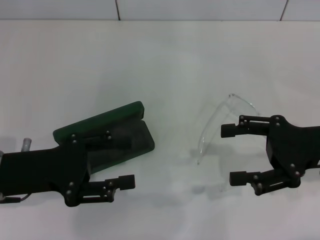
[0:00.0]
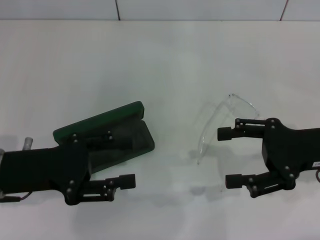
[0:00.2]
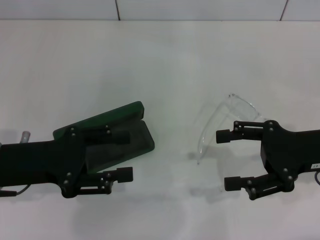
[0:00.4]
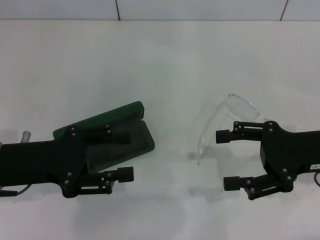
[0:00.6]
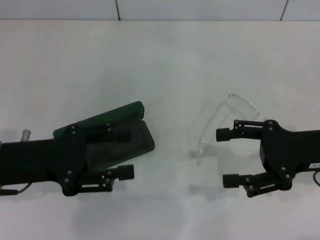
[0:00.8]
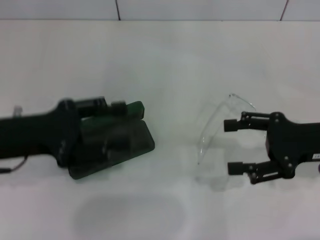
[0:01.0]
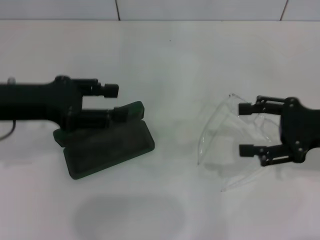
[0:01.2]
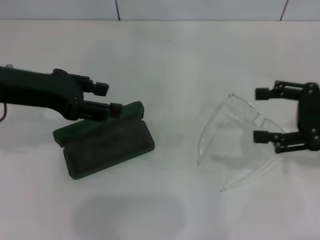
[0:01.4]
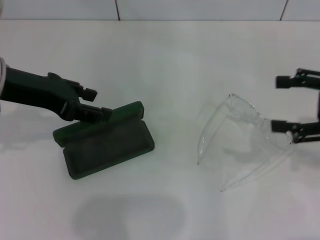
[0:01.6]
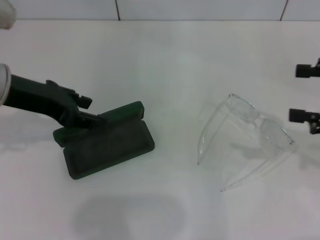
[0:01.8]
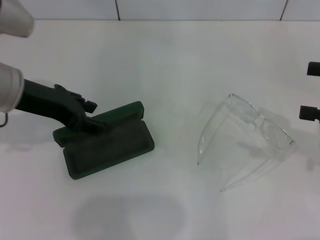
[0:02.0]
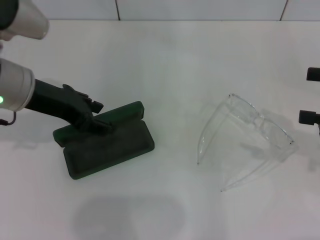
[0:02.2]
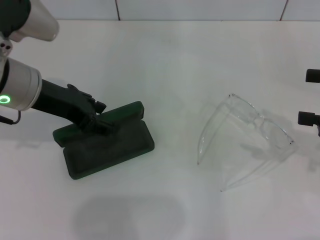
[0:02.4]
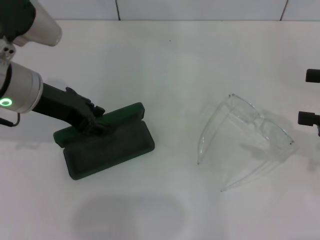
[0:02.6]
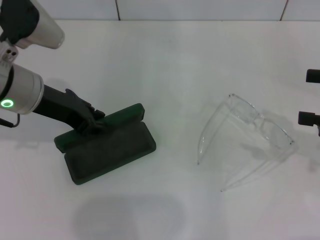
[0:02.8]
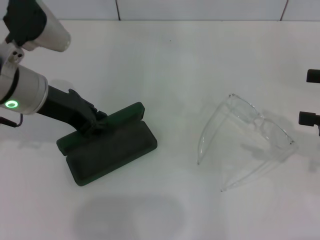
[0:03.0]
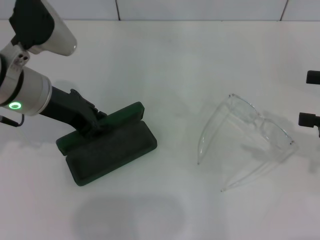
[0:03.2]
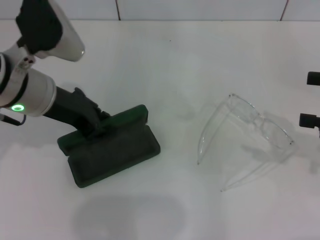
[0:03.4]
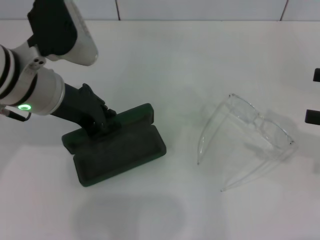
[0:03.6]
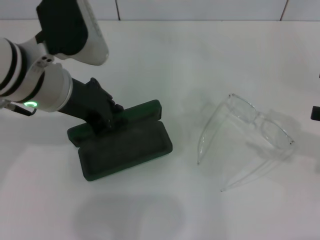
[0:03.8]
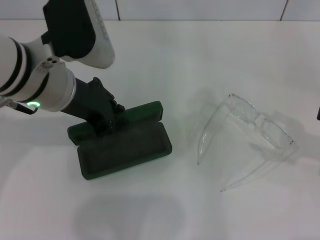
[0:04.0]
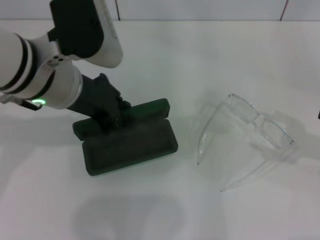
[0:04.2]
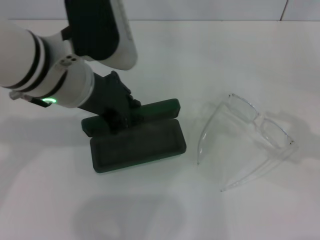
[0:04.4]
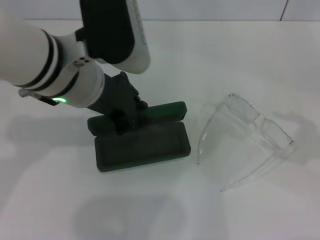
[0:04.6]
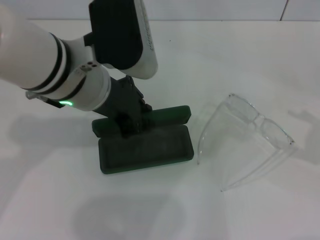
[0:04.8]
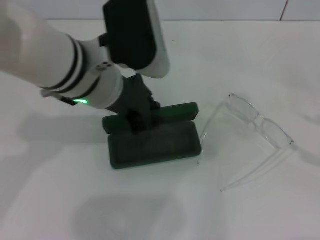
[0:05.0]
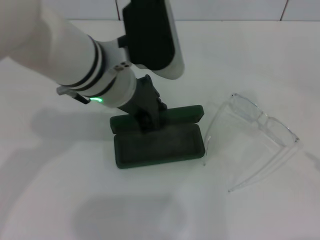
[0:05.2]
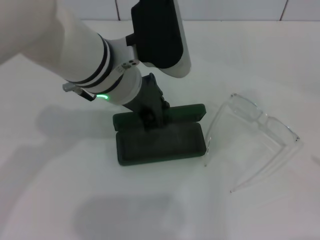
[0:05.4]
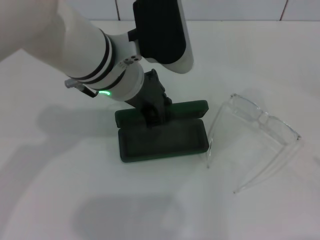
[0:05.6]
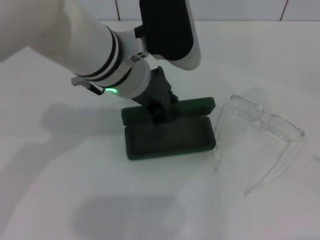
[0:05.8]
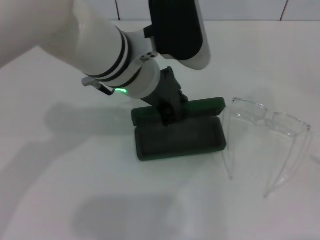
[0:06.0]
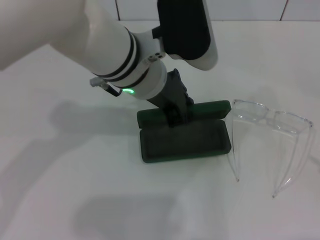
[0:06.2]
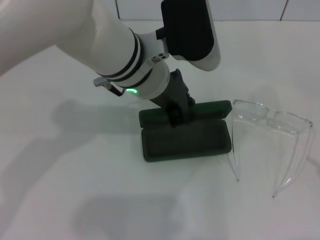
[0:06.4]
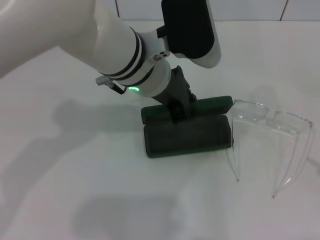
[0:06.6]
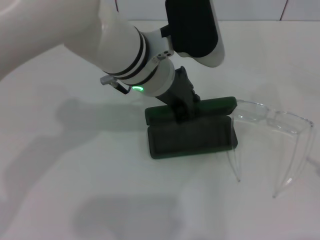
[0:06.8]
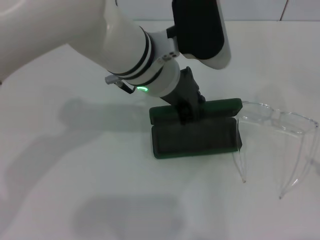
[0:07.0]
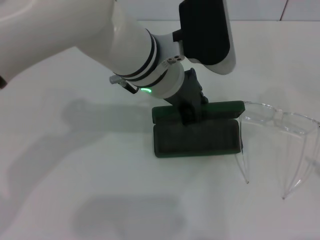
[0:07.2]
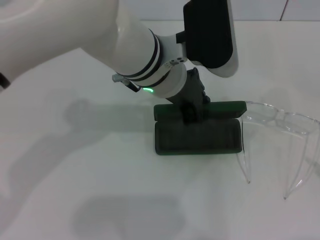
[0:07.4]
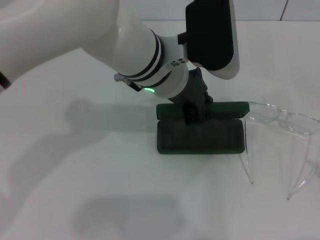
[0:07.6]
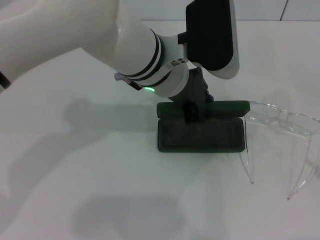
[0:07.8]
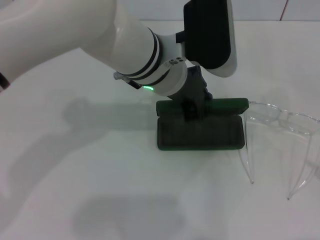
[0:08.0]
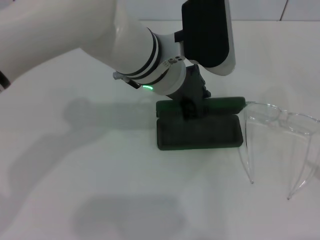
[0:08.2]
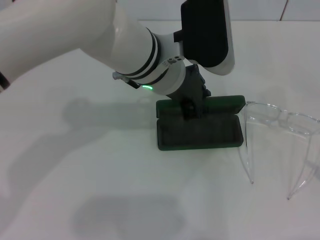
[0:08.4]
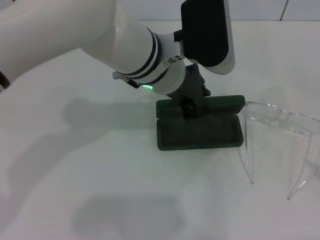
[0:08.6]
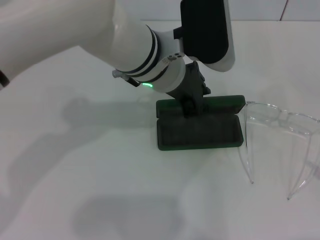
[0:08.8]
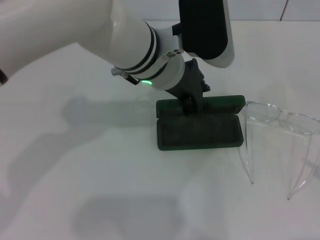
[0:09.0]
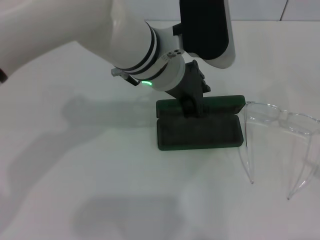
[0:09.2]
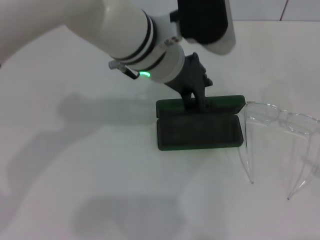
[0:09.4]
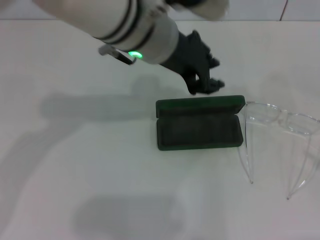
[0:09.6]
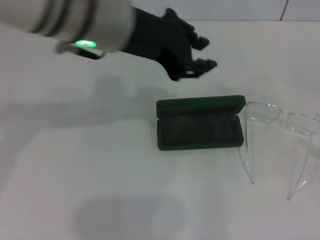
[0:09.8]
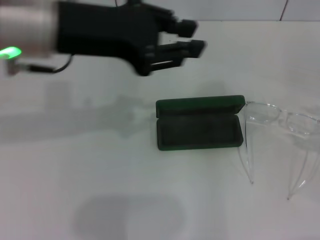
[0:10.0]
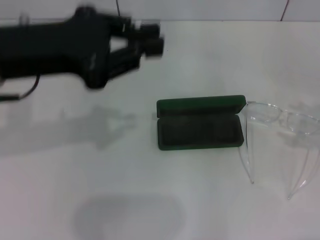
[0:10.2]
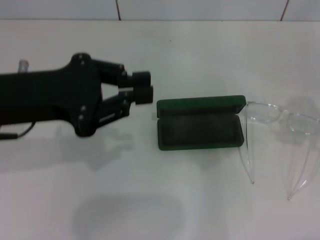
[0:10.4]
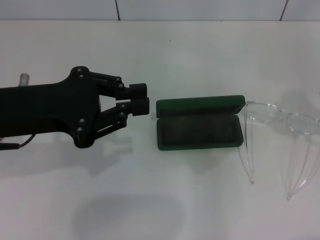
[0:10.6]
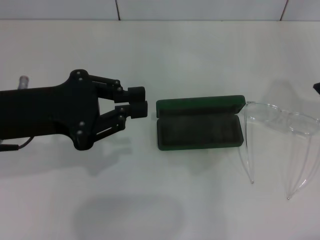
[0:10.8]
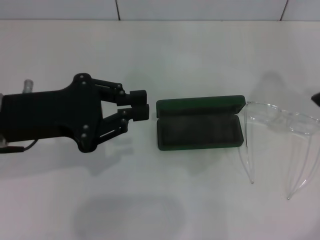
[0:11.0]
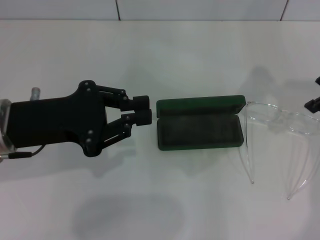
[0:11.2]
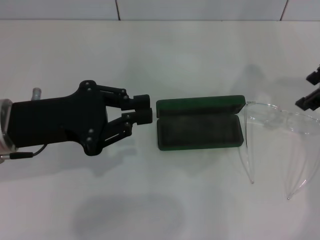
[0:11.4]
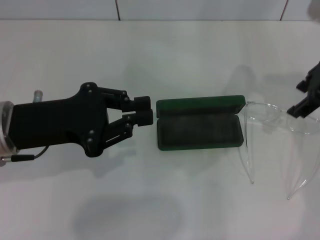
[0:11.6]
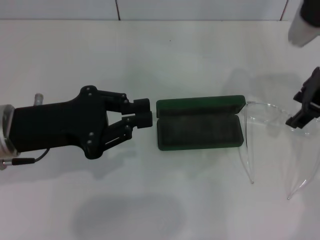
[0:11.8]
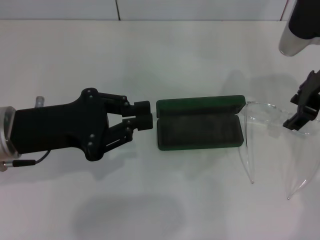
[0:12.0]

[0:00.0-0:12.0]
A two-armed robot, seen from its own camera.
Step, 0:00.0 to 0:02.8: Grab the glasses case with your left hand.
Step, 0:03.2 to 0:08.6: Place the glasses case in the center of the table with your left hand.
0:00.0 to 0:01.6: The left gripper travels upward and forward by about 15 cm; the right gripper is displaced to the right and upward by roughly 5 cm.
0:01.6 to 0:03.0: The left gripper ends up approximately 5 cm from where it was, and closes its fingers.
0:03.0 to 0:04.4: The left gripper travels to the right by approximately 5 cm.
0:04.4 to 0:06.0: The right gripper moves backward and to the right, some 10 cm. The left gripper heads to the right, covering some 5 cm.
0:07.6 to 0:09.0: Both grippers stay about where they are.
0:09.0 to 0:10.4: The left gripper goes some 20 cm to the left and backward. The right gripper goes about 15 cm forward, to the left and upward.
0:10.4 to 0:12.0: The left gripper shifts roughly 5 cm downward; the right gripper goes approximately 15 cm to the left and forward.

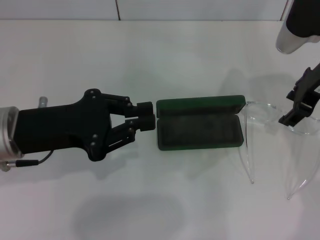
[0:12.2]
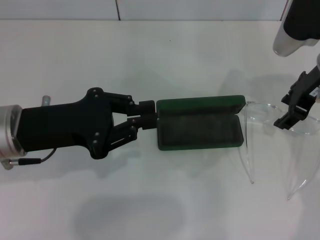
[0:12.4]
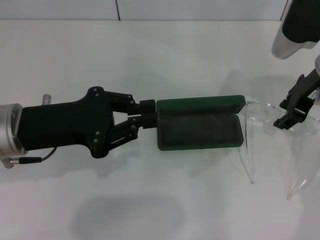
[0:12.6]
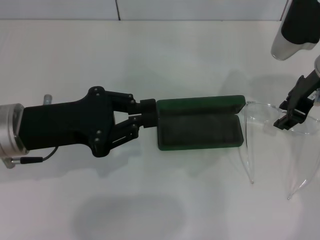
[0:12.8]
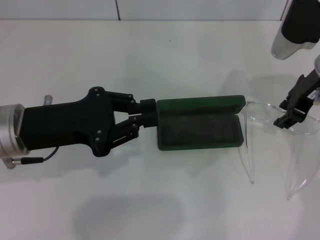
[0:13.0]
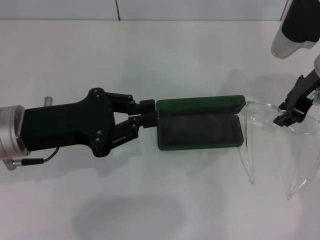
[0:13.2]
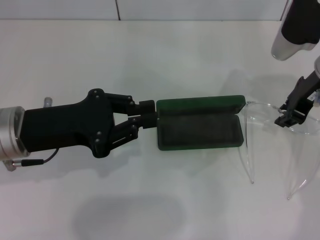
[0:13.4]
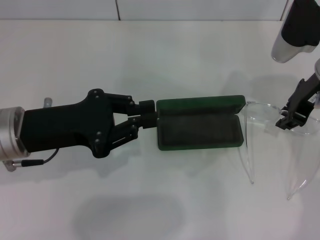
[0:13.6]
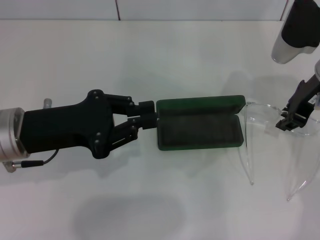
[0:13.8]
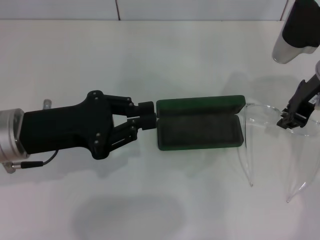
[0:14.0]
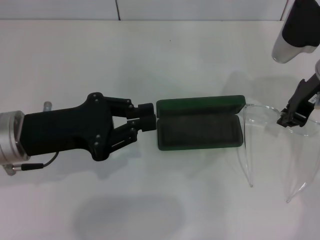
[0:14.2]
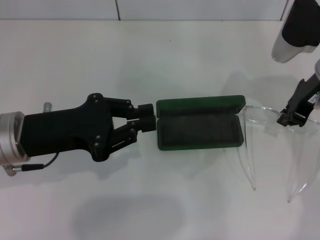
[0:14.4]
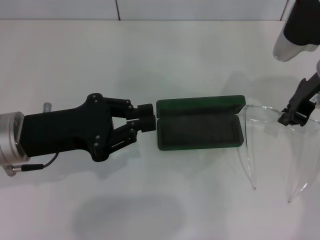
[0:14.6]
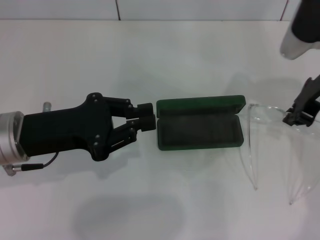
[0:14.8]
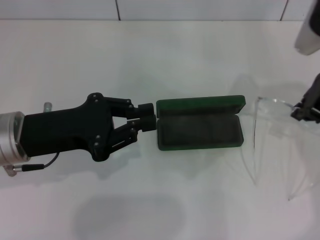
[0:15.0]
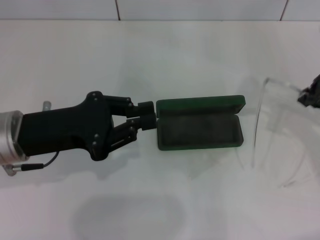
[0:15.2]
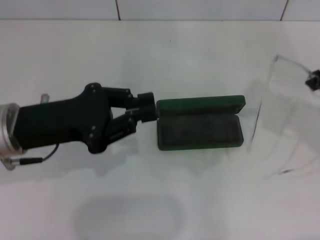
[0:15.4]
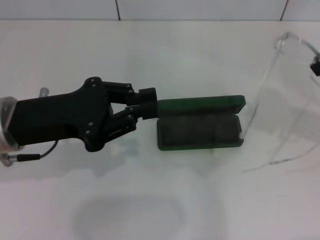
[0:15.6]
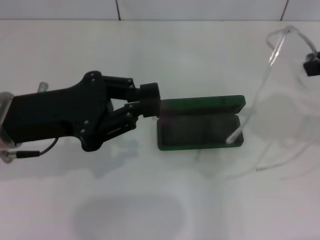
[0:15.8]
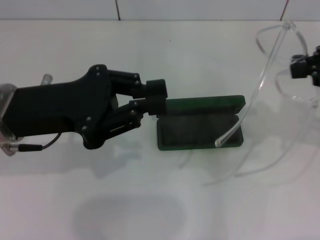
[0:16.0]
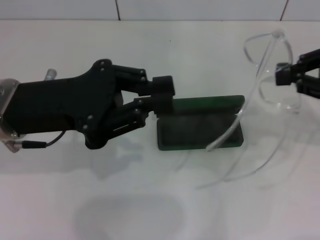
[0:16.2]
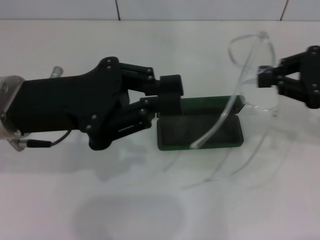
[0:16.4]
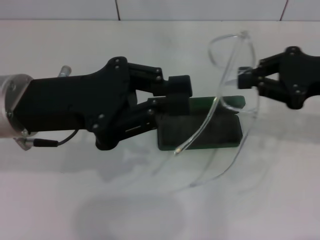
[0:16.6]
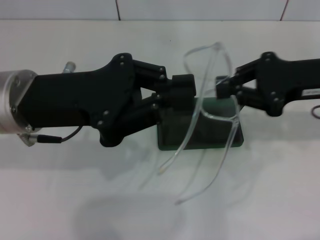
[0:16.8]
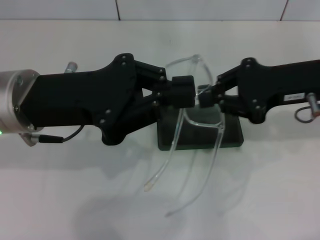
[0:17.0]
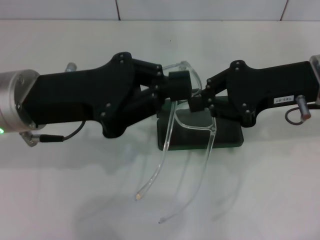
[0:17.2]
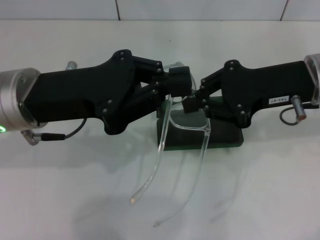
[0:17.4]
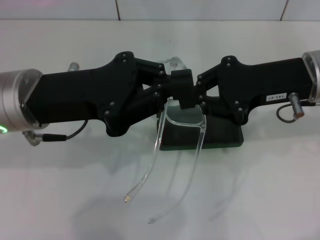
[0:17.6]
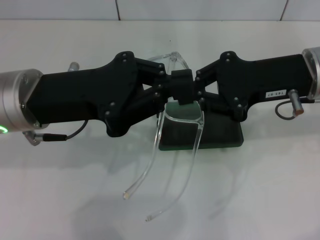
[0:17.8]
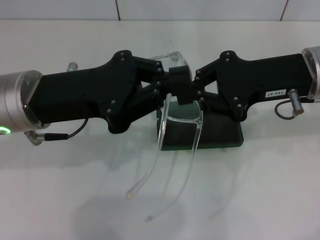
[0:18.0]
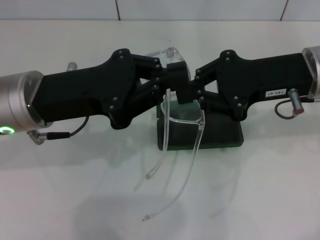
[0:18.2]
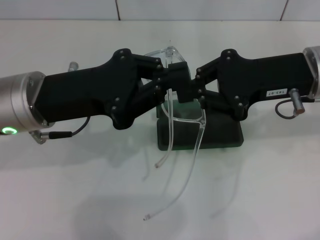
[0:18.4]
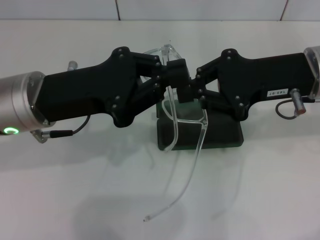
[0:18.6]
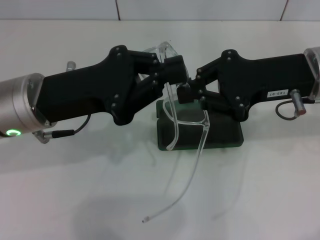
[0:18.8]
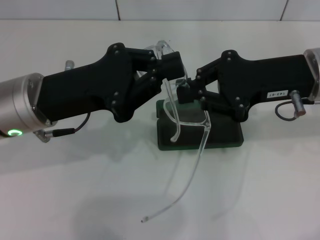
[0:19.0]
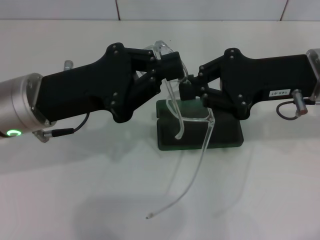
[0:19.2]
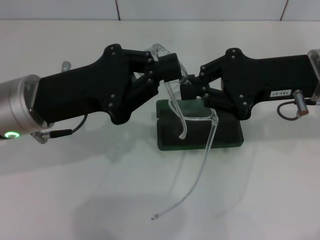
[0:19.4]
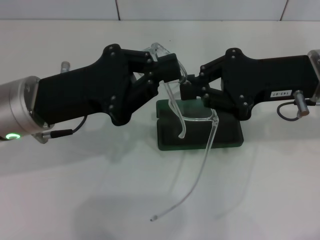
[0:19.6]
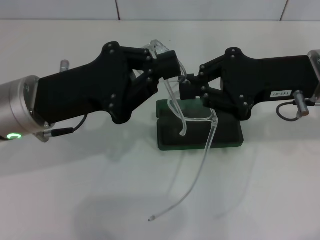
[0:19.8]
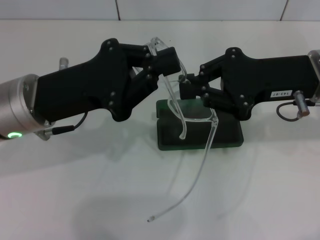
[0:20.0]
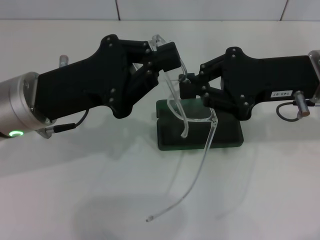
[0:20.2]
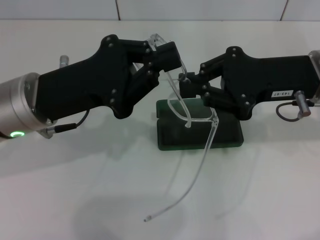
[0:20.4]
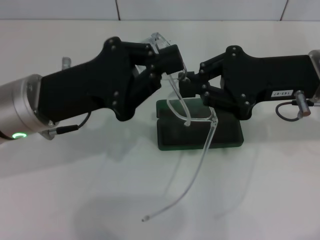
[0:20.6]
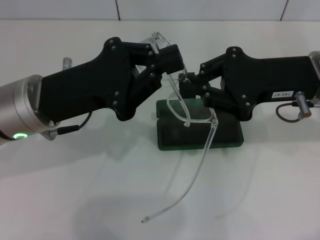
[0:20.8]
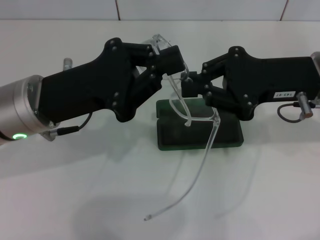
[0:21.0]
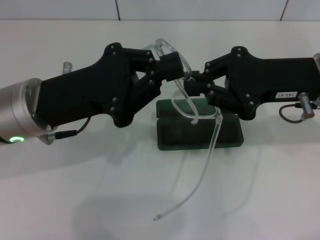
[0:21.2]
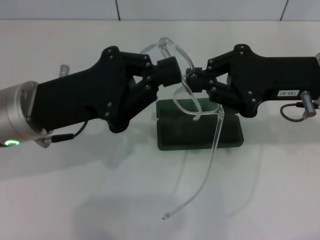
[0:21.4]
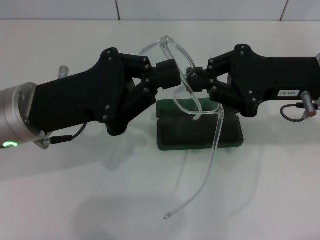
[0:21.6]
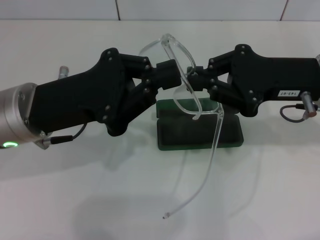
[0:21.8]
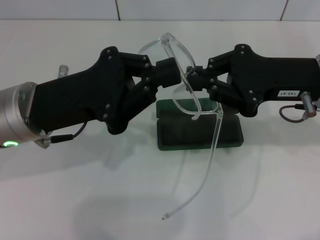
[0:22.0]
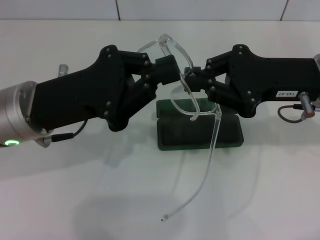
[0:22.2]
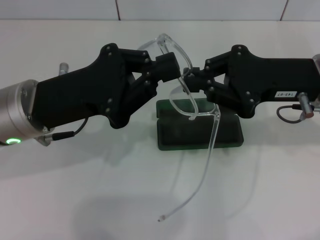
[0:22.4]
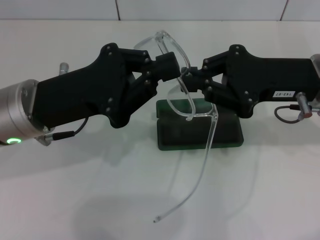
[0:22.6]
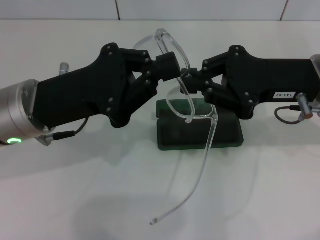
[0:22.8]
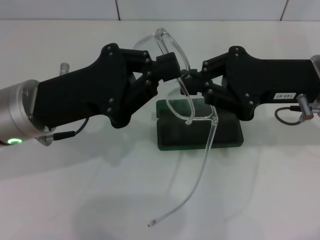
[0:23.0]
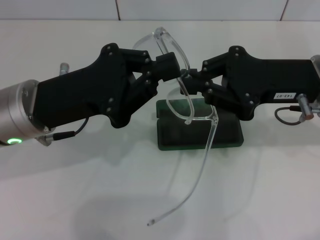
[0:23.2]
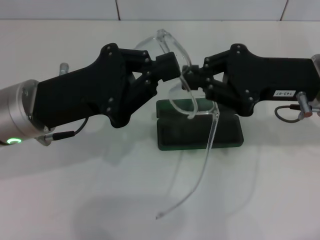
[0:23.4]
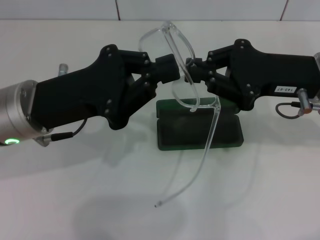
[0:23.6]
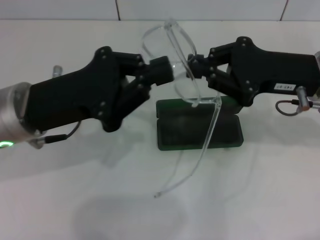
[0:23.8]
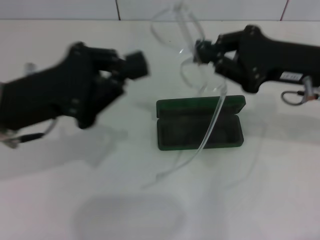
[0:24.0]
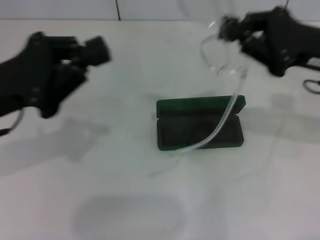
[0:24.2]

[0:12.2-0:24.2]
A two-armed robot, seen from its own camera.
Step, 0:12.2 to 0:14.6: Grab the eyeglass frame with your right hand.
0:12.2 to 0:13.8: The right gripper closes up.
0:13.8 to 0:15.2: The right gripper goes approximately 5 cm upward.
0:15.2 to 0:16.6: The left gripper goes some 5 cm upward, while the right gripper heads downward, covering about 5 cm.
0:16.6 to 0:18.2: The right gripper shifts approximately 10 cm to the left.
0:18.2 to 0:19.8: The grippers move only a little.
0:19.8 to 0:21.2: Neither gripper changes place.
0:21.2 to 0:22.6: Neither gripper changes place.
0:22.6 to 0:24.2: The left gripper shifts roughly 5 cm to the left.
